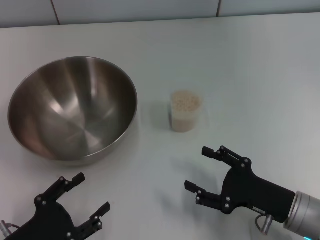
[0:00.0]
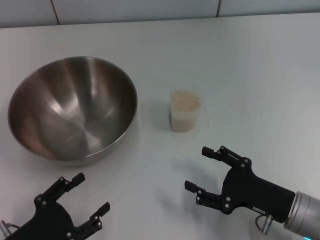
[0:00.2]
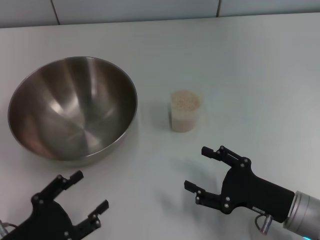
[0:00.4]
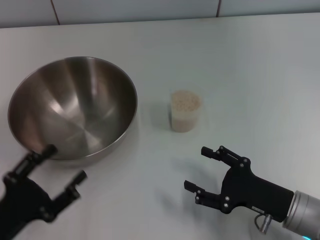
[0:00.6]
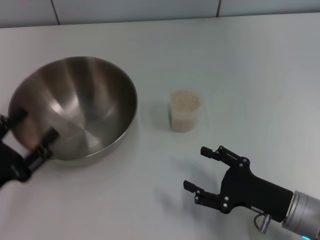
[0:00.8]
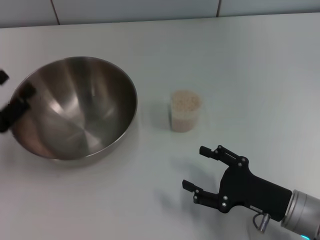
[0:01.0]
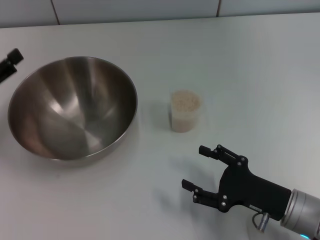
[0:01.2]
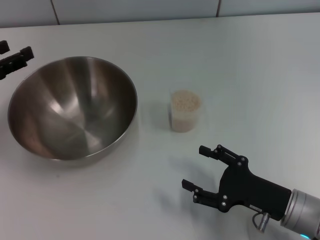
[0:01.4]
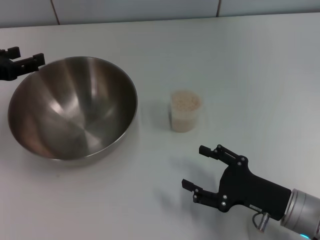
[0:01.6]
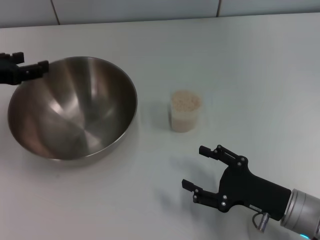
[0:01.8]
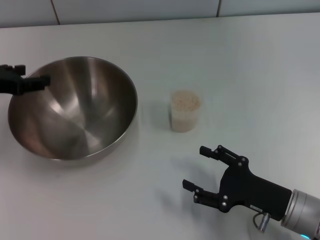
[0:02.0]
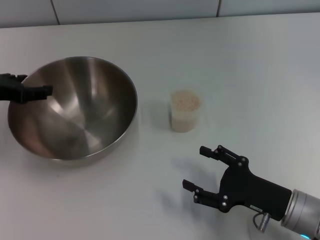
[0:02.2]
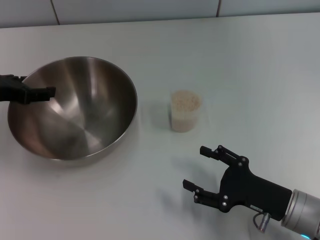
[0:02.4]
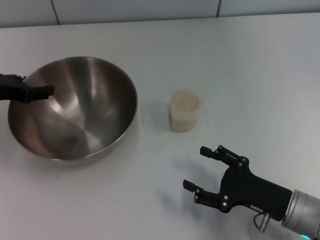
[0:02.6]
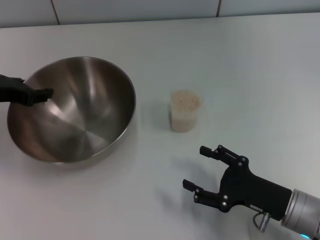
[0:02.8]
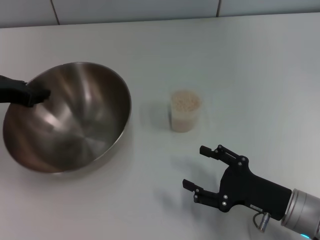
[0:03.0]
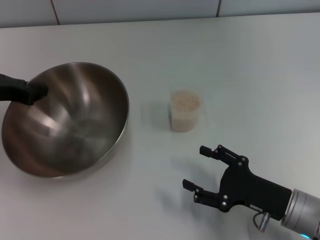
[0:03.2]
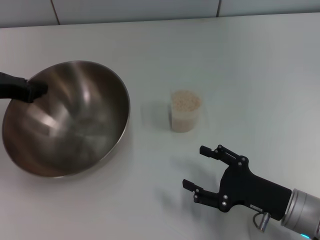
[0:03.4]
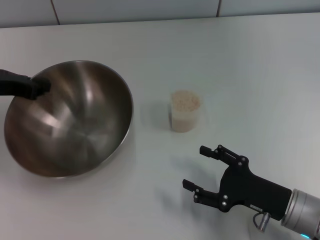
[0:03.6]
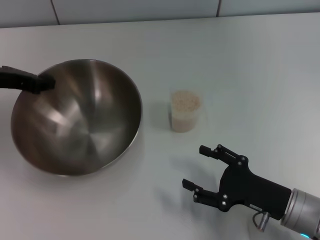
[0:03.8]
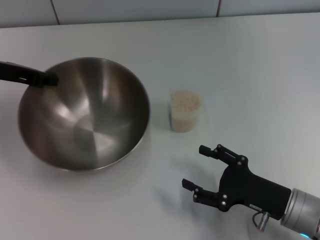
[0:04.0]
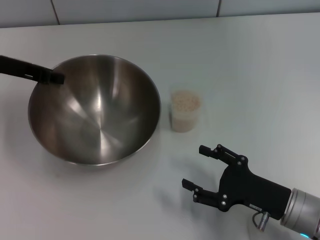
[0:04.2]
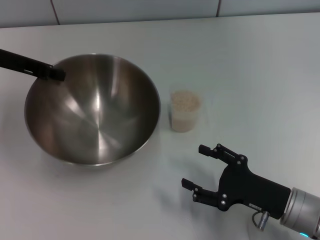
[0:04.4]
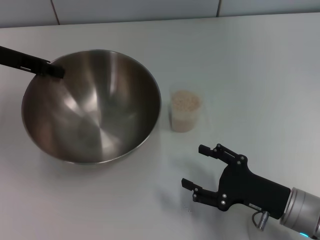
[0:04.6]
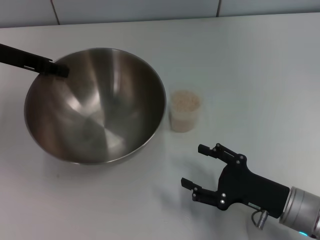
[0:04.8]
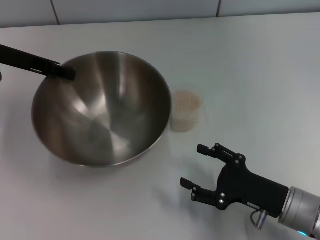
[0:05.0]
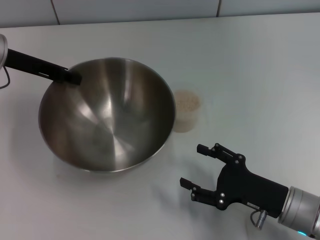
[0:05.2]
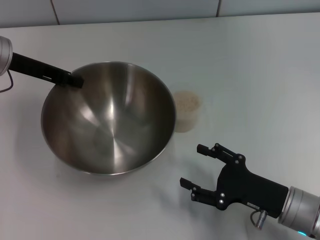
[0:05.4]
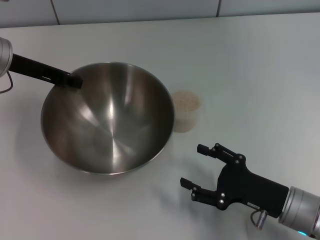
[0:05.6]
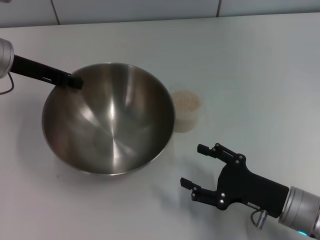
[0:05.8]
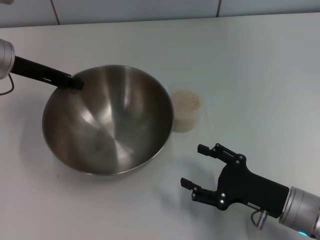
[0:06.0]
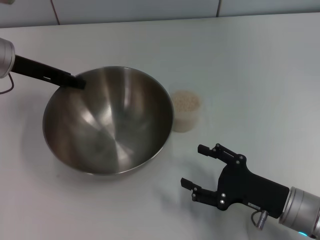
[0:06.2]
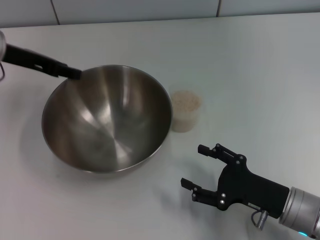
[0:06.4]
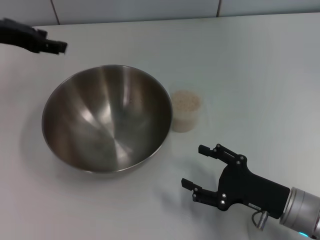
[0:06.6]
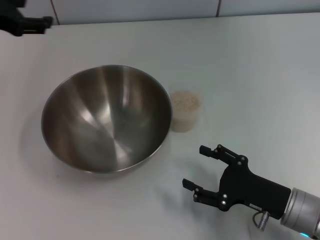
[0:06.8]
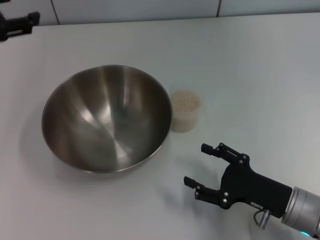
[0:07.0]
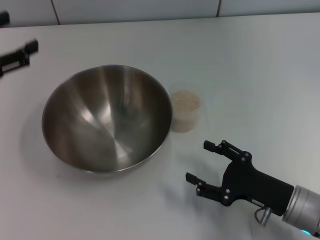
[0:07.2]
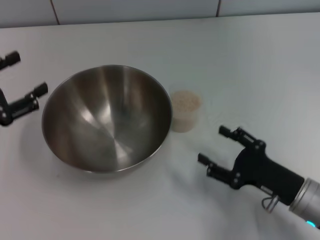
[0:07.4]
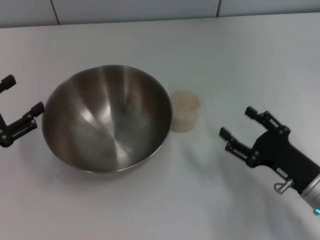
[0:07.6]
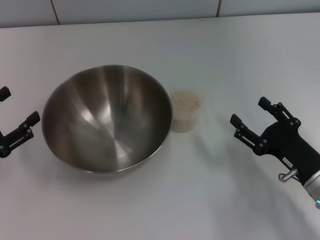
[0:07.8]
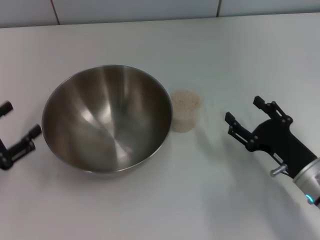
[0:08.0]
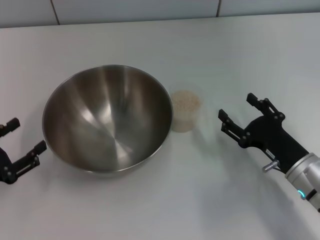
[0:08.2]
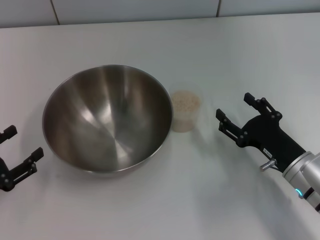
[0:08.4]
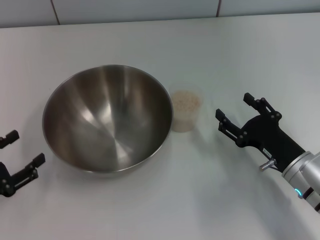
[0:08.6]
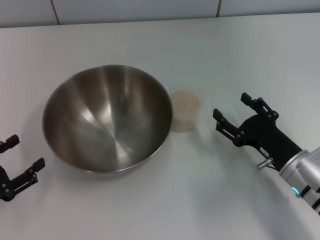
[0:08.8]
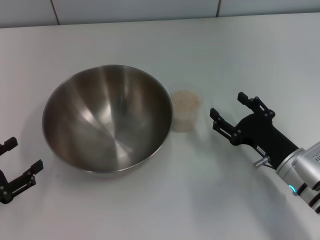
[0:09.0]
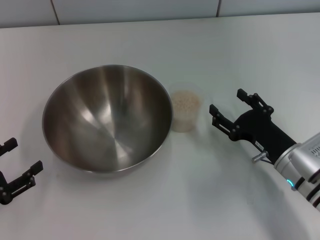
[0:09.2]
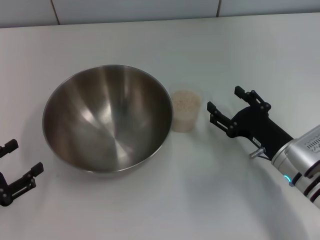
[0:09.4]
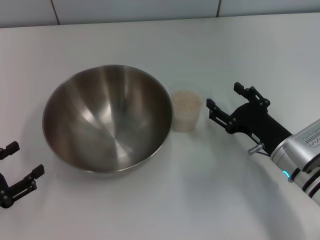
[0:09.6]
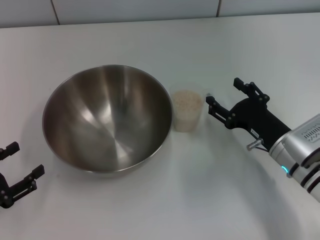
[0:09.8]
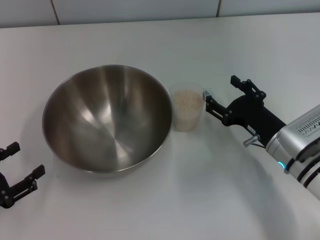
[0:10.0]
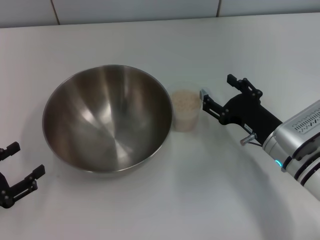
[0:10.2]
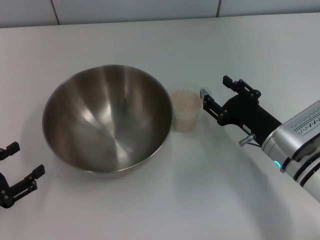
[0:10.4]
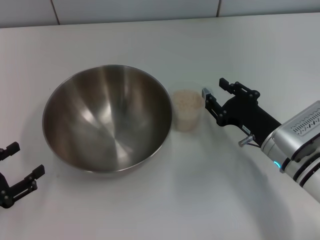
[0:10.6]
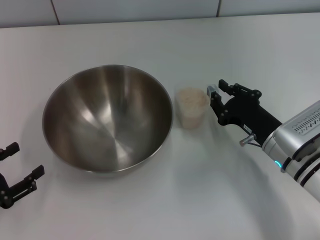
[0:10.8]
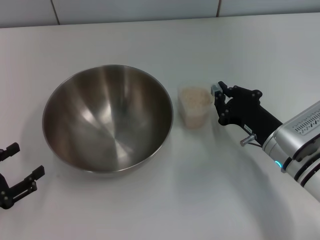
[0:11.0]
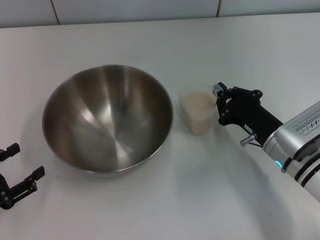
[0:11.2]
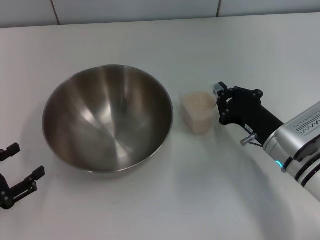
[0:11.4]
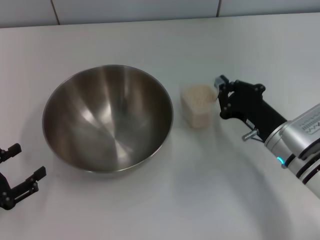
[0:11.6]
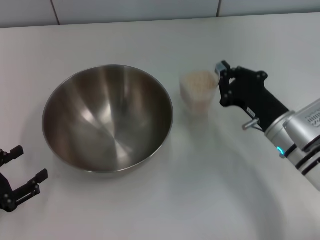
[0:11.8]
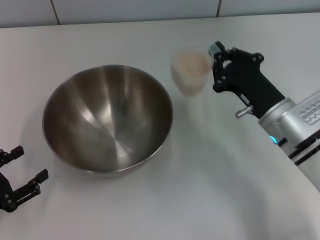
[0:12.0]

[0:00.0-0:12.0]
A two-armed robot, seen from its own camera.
Task of the whole recording: Place the bowl in the middle of the table with one hand and pour the rice from the grain cup into it with the other hand.
Step, 0:00.0 to 0:04.4: Pick up the bowl with the left gripper.
Step, 0:04.6 to 0:07.0: Place the bowl in the center of view with the left gripper.
0:00.0 to 0:01.6: The left gripper shifts roughly 25 cm forward and upward.
0:01.6 to 0:03.0: The left gripper closes up.
0:03.0 to 0:04.4: The left gripper moves approximately 5 cm, and closes its fingers.
0:04.4 to 0:06.0: The grippers stay close to where they were, moving slightly.
0:06.0 to 0:07.6: The left gripper shifts roughly 20 cm backward, to the left and downward, and opens.
0:07.6 to 0:09.0: The left gripper goes roughly 5 cm backward.
0:09.0 to 0:10.4: The grippers make only small movements.
0:10.4 to 0:12.0: The right gripper closes its fingers.

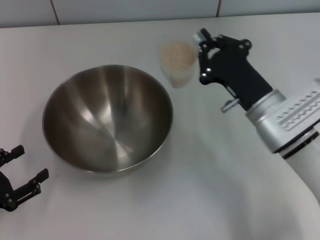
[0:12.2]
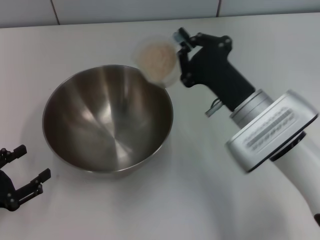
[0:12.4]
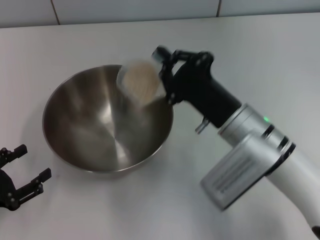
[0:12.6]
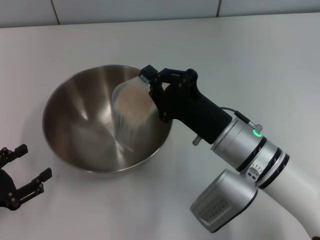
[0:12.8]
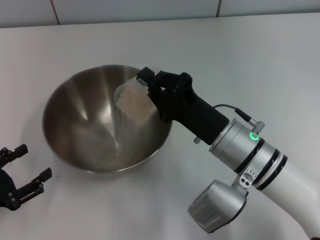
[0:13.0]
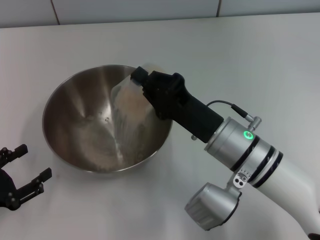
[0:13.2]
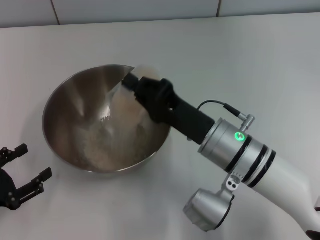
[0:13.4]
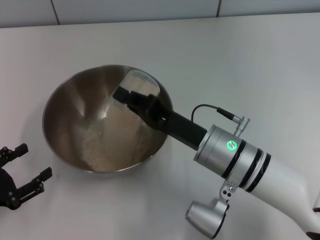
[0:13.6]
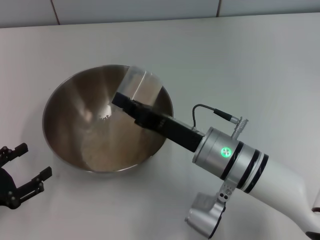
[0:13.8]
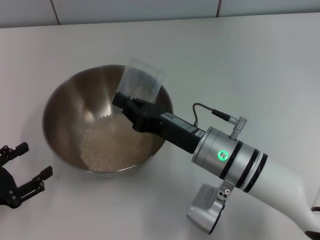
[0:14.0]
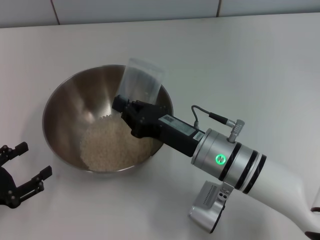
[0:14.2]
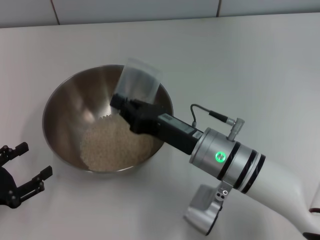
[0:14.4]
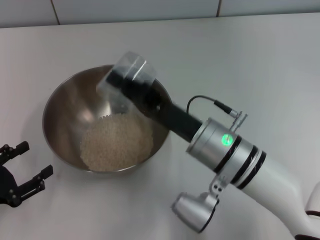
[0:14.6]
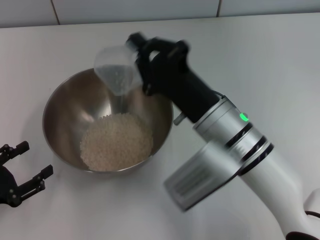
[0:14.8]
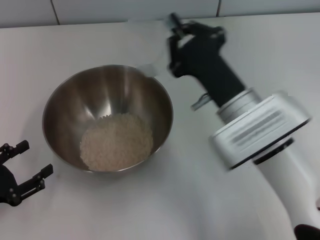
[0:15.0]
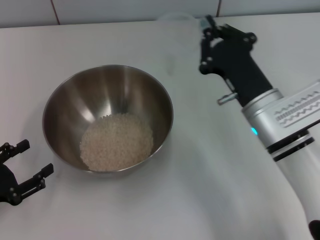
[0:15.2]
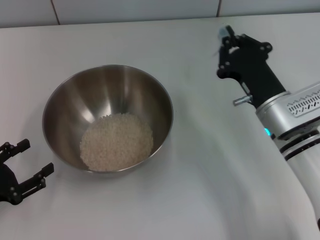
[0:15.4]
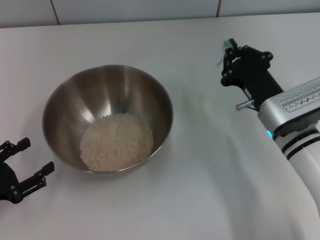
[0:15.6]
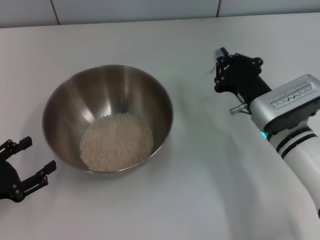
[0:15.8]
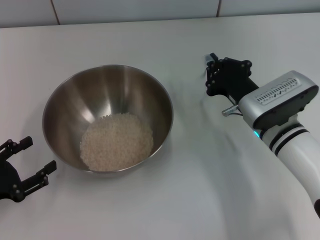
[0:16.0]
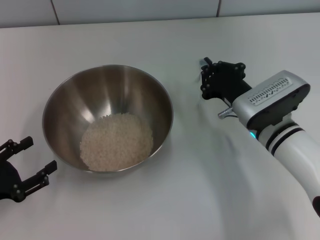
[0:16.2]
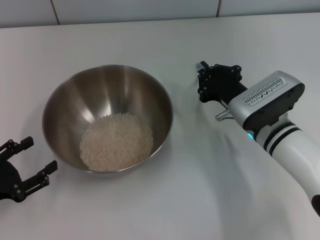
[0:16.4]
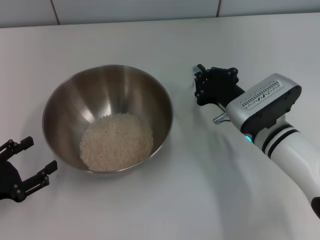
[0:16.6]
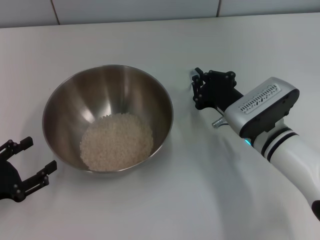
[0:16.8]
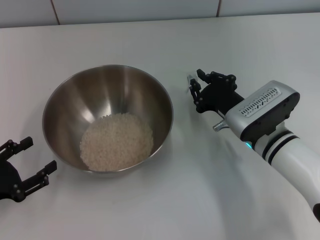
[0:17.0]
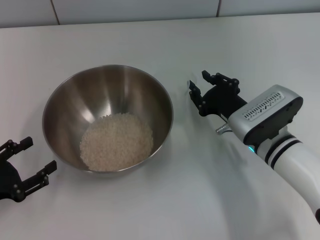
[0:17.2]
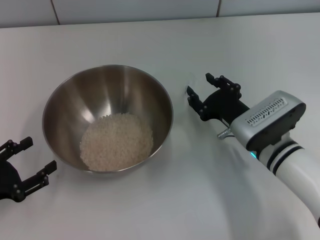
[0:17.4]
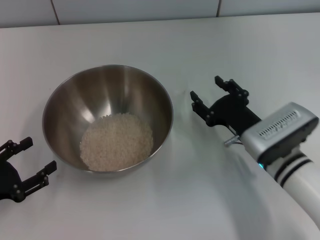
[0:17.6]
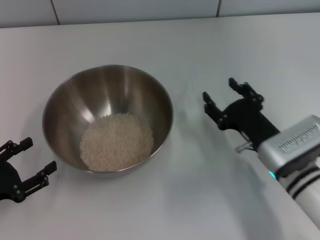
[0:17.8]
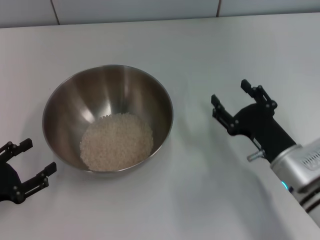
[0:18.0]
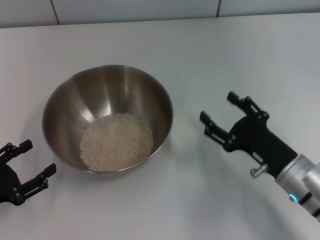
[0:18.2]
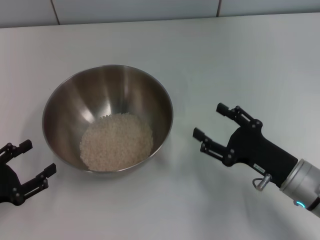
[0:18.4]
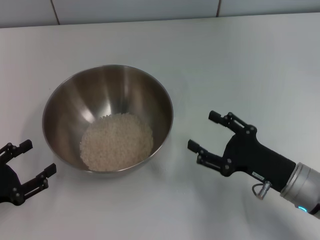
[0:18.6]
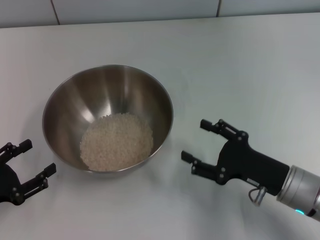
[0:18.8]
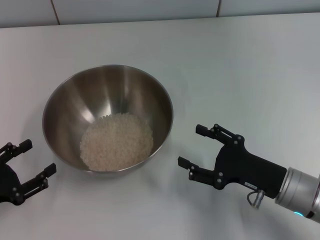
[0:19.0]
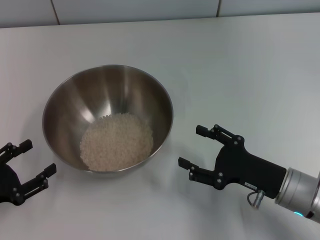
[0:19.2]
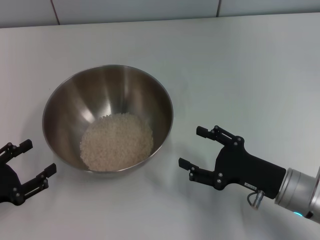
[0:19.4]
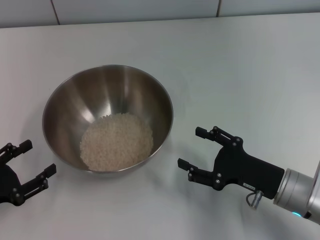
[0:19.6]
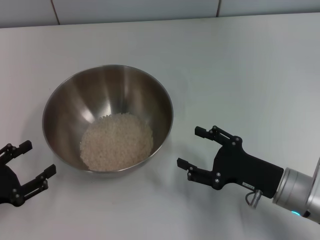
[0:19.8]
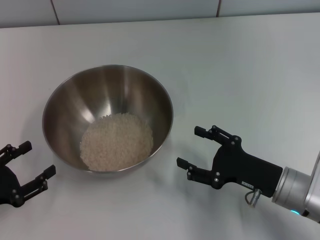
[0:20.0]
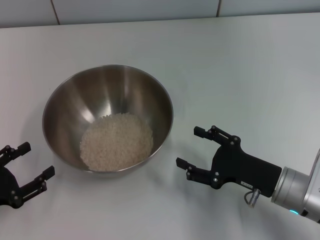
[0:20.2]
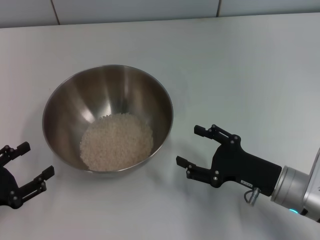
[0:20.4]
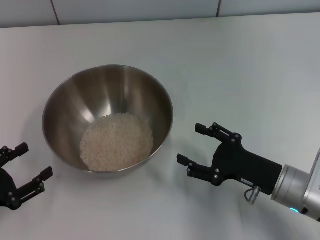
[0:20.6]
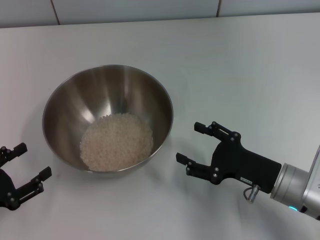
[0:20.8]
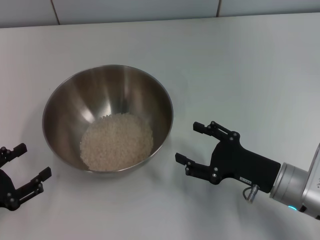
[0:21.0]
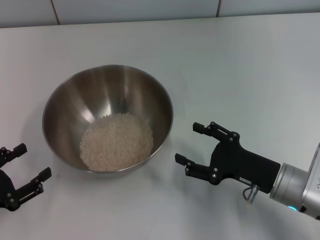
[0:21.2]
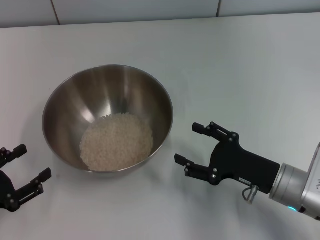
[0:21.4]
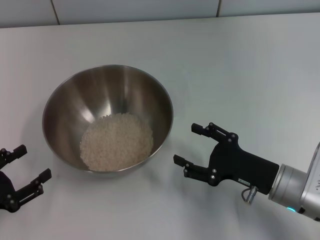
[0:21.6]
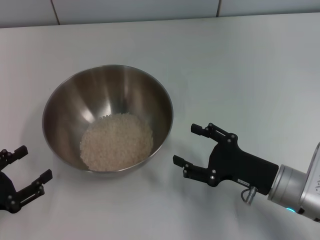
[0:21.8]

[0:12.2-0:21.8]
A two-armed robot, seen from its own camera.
Task of the whole recording: Place the bowl in the middle of the table with one hand and pour the rice from the grain cup into it with the other hand.
Step, 0:12.2 to 0:15.6: Pour the rice from the cup into the bowl with the right gripper.
Step, 0:15.8 to 0:18.6: Place the cup on the table with the right gripper.
0:12.2 to 0:13.8: The right gripper travels to the left by about 5 cm.
0:13.8 to 0:15.4: The right gripper is displaced to the right by approximately 10 cm.
0:17.0 to 0:18.6: The right gripper heads backward and to the right, covering about 10 cm, and opens up.
0:18.6 to 0:20.2: The grippers stay close to where they were, moving slightly.
0:20.2 to 0:21.8: The two grippers keep their place.
